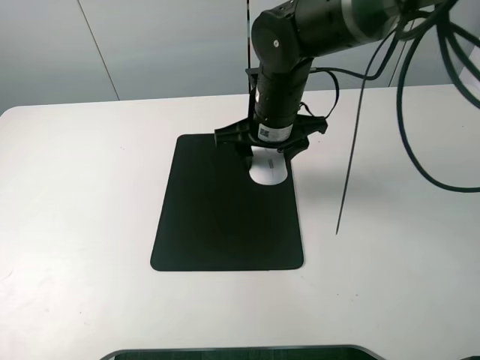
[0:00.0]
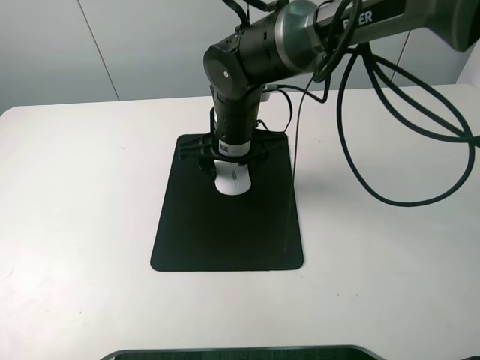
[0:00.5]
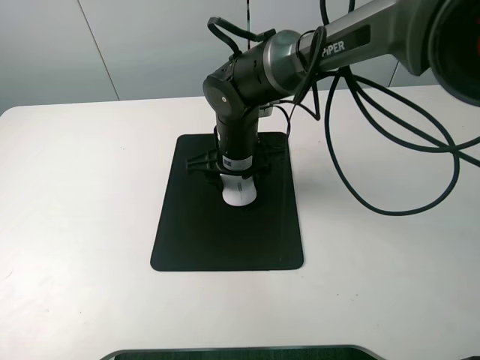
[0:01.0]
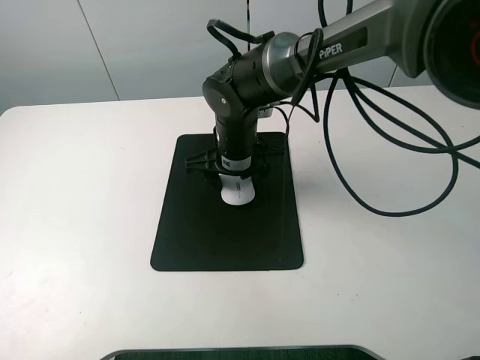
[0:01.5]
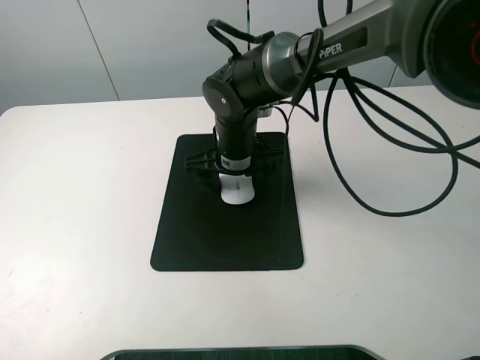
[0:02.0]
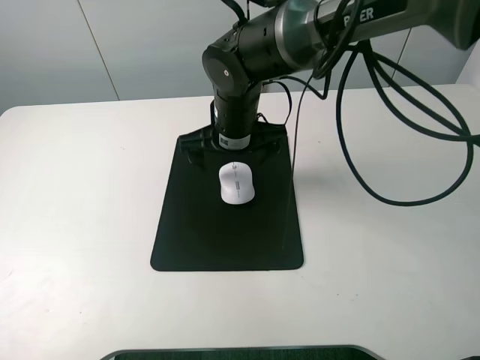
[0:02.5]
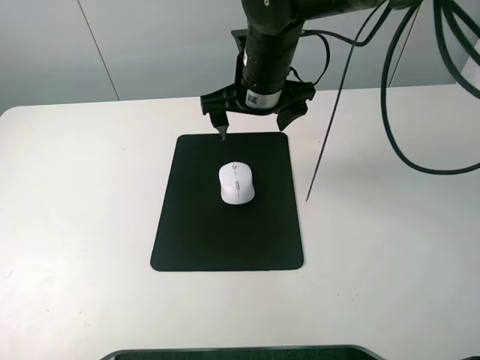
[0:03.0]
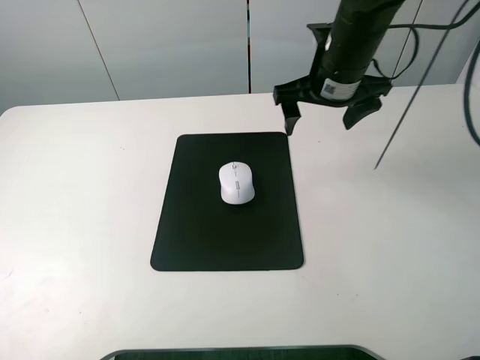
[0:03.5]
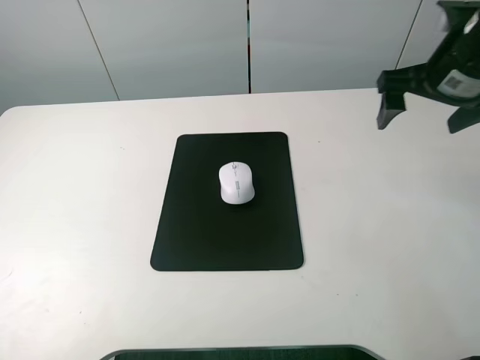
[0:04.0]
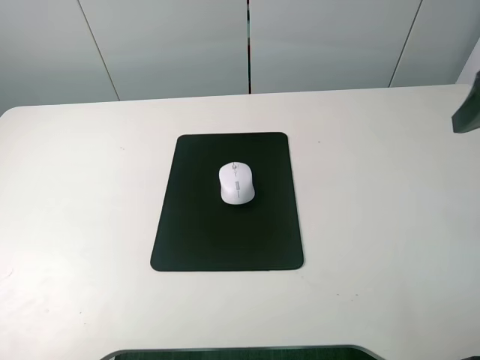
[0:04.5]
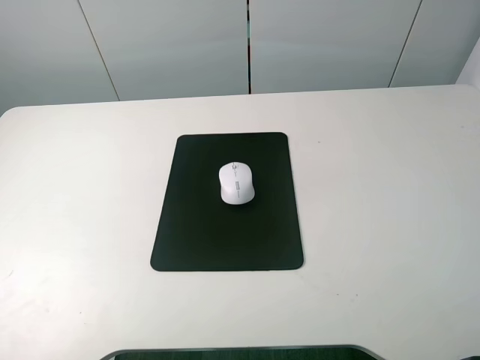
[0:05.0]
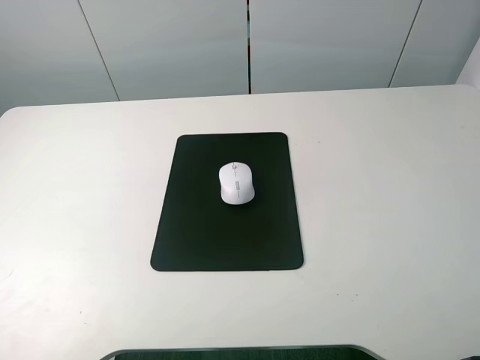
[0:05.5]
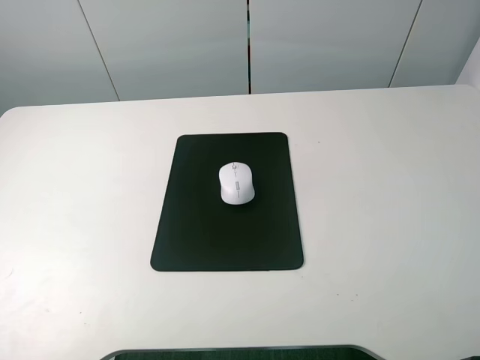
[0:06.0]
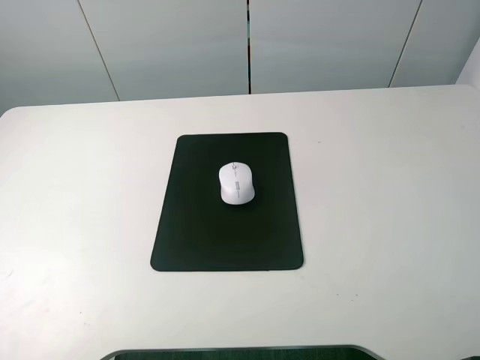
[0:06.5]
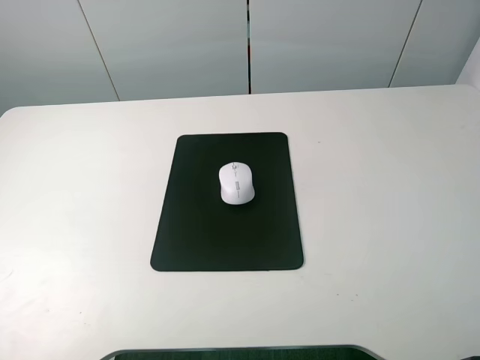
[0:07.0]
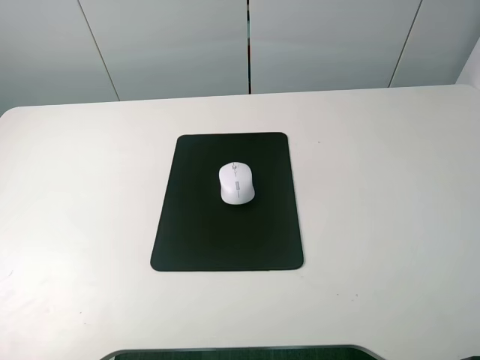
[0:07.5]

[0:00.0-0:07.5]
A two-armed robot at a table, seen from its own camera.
Step, 0:00.0 to 0:02.0: Place the mouse on the mouse mat with the right gripper.
0:00.0 to 0:02.0: The right gripper moves downward, some 5 cm, and opens.
0:02.0 to 0:04.0: The right gripper shifts approximately 30 cm to the right and upward.
0:04.0 to 0:05.5: The right gripper moves backward, about 30 cm.

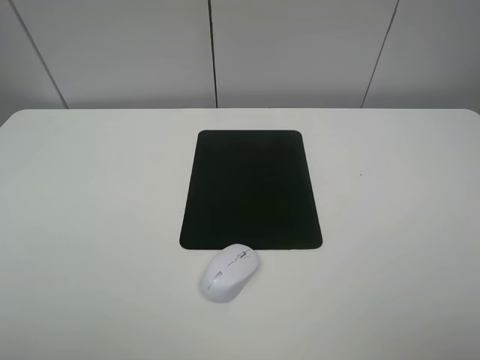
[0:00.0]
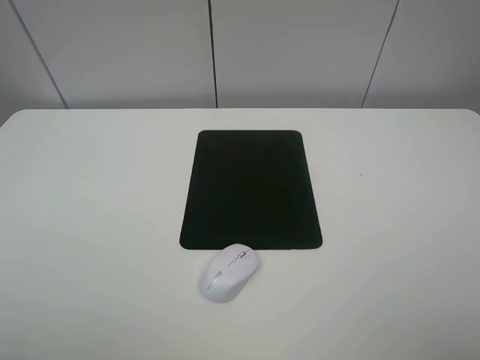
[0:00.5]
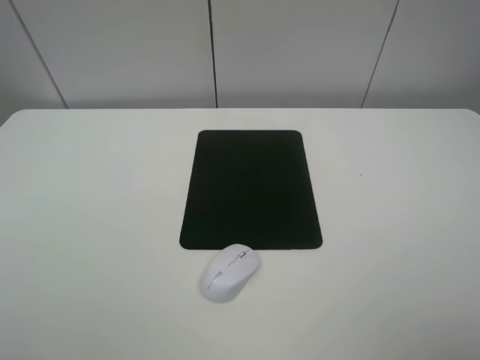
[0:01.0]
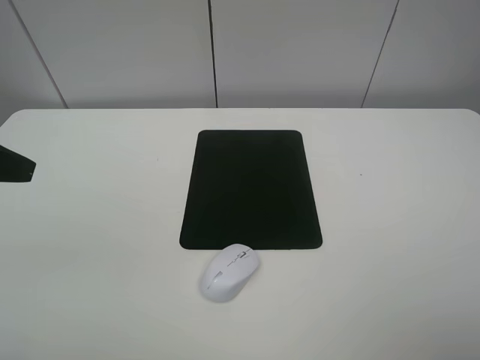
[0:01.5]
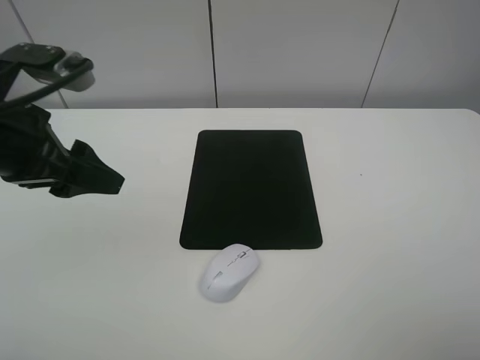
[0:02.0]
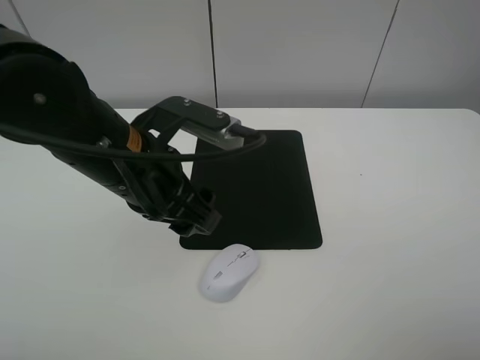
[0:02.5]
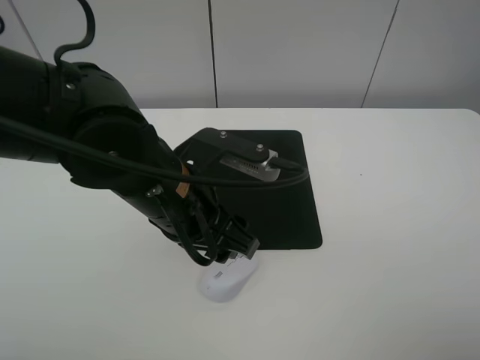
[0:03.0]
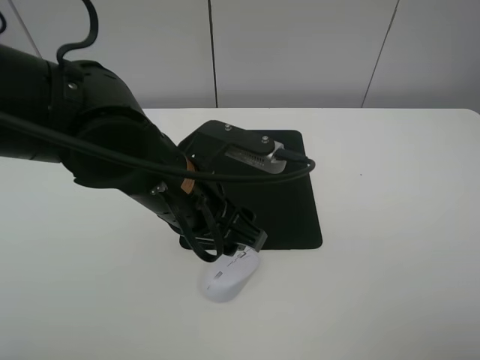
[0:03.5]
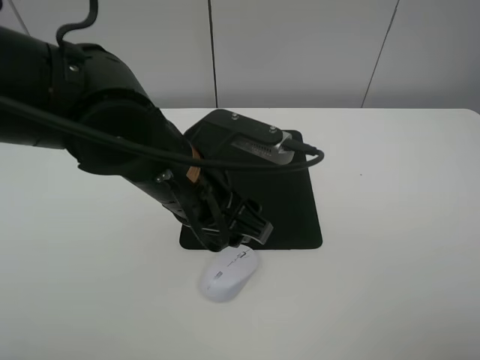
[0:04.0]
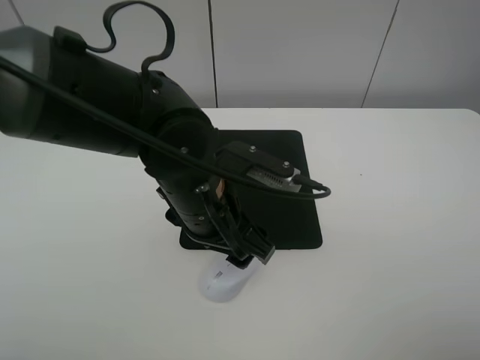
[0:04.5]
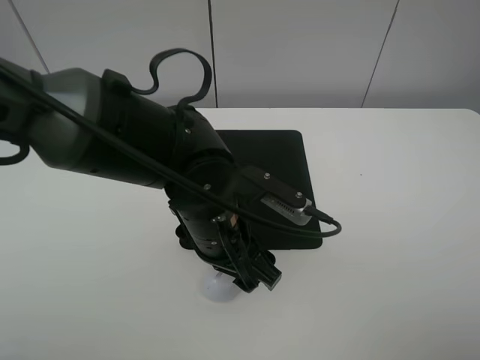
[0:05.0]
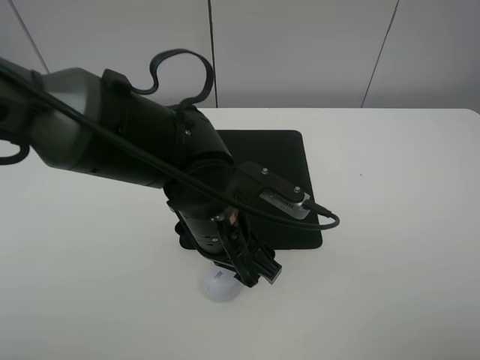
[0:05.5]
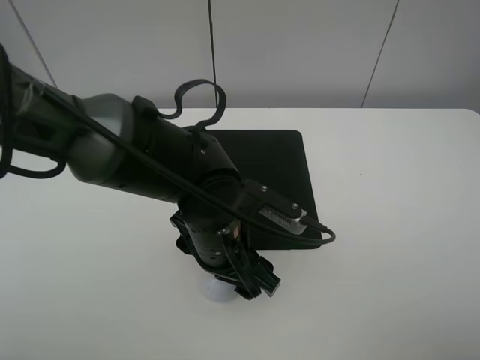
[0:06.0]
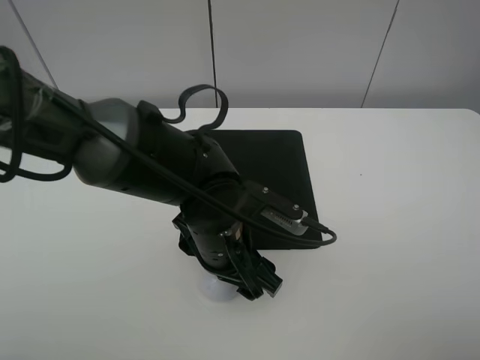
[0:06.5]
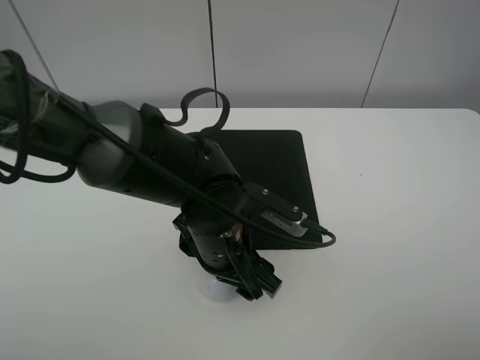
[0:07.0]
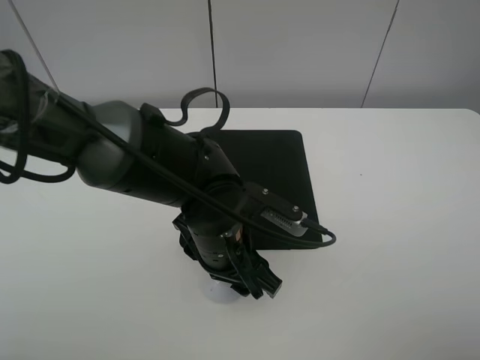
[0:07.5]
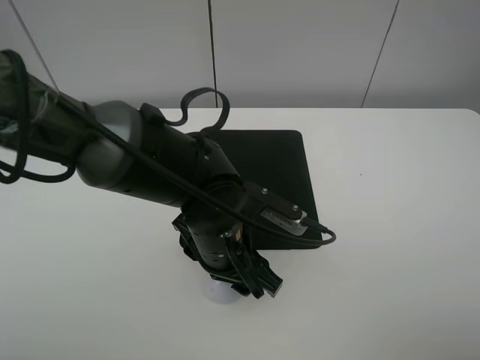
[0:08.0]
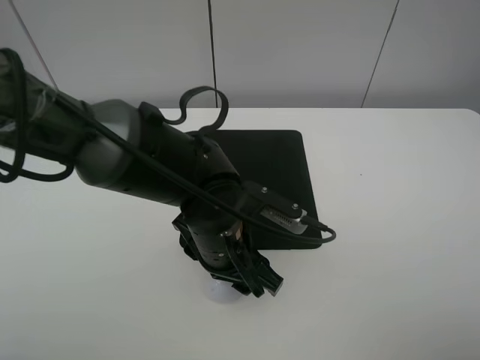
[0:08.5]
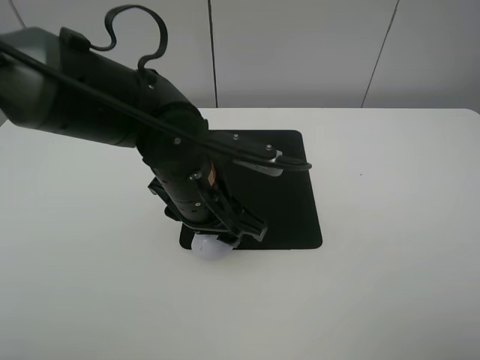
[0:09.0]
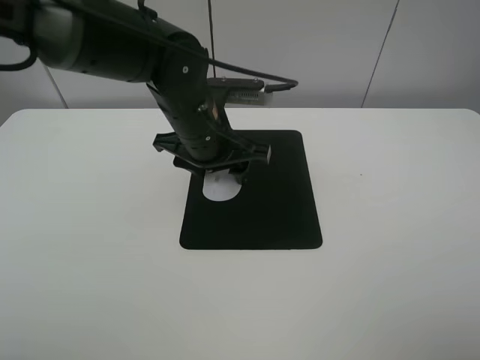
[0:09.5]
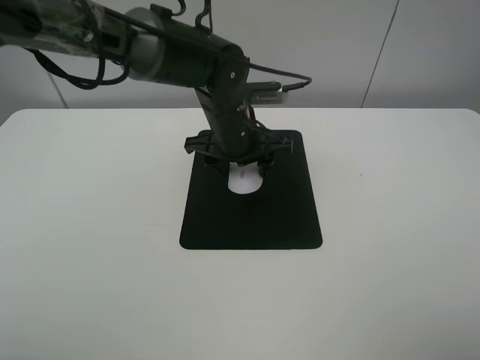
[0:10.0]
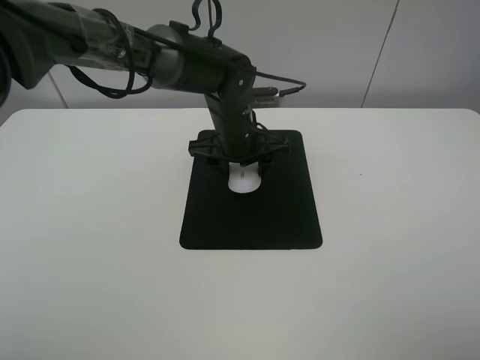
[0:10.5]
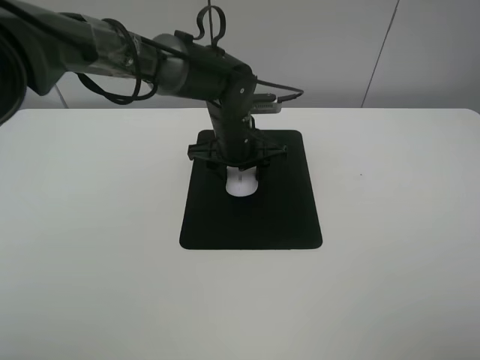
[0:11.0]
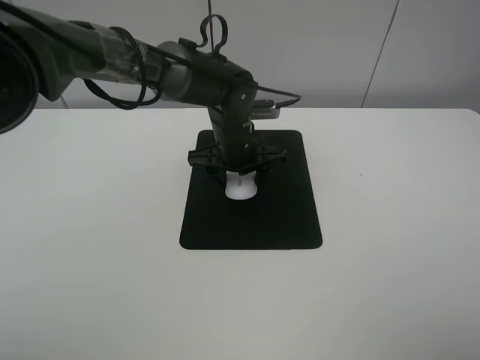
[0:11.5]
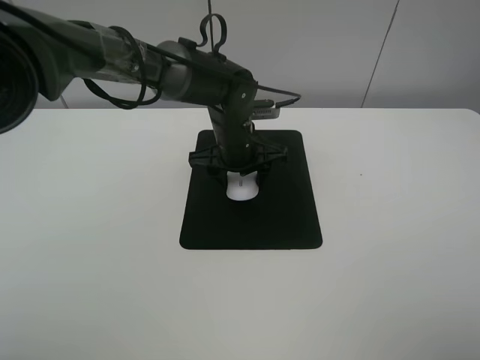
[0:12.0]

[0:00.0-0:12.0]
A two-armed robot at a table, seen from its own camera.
Step, 0:00.0 to 0:08.0: Grasp the mouse with the left gripper.
0:00.0 to 0:02.0: The left gripper goes some 20 cm forward and to the right.
0:02.0 to 0:04.0: The left gripper heads to the right, covering about 15 cm.
0:04.0 to 0:06.0: The left gripper goes about 10 cm downward, and opens its fingers.
0:06.0 to 0:08.0: The left gripper closes up.
0:08.0 to 0:10.0: The left gripper travels forward by approximately 15 cm.
0:10.0 to 0:12.0: The grippers move only a little.

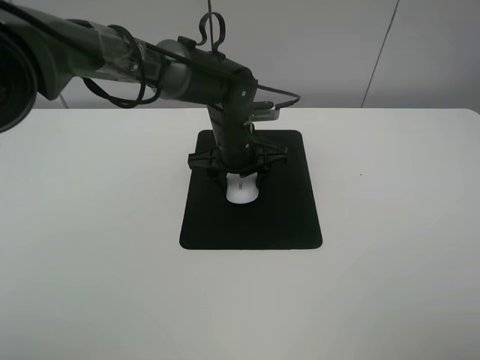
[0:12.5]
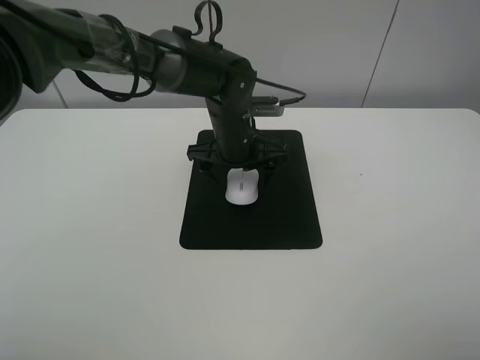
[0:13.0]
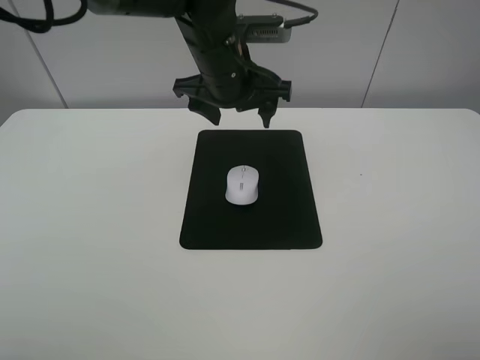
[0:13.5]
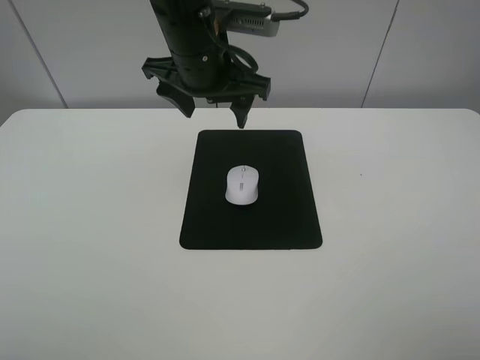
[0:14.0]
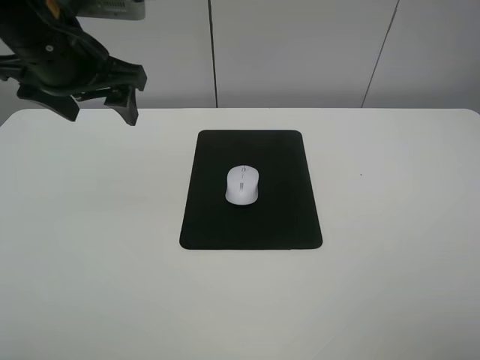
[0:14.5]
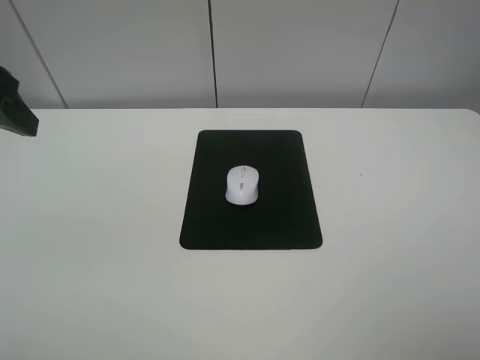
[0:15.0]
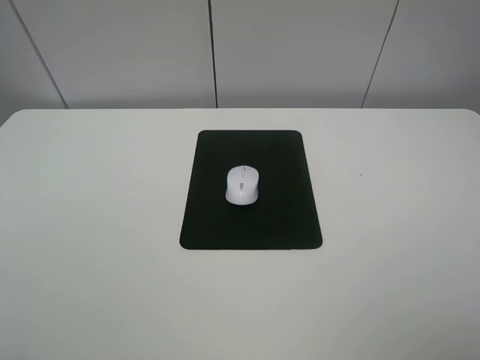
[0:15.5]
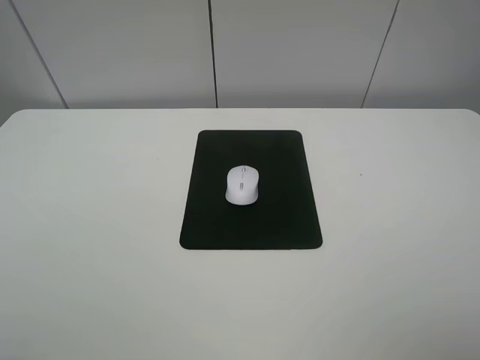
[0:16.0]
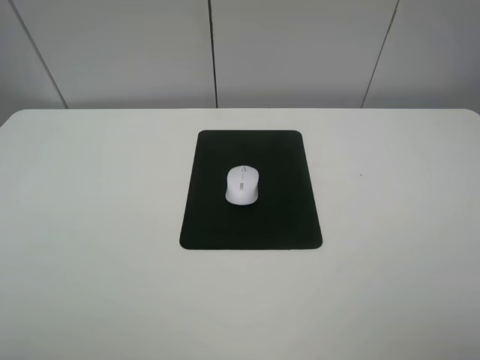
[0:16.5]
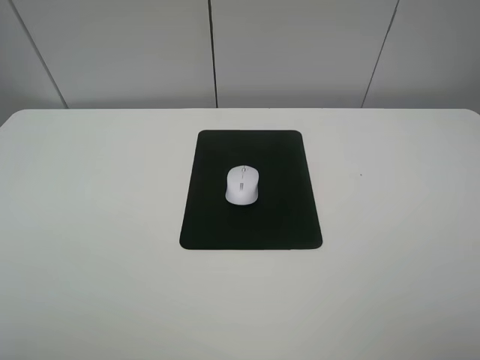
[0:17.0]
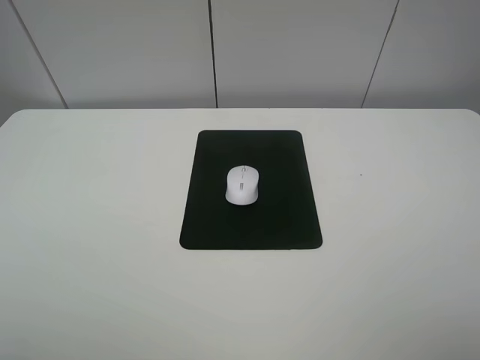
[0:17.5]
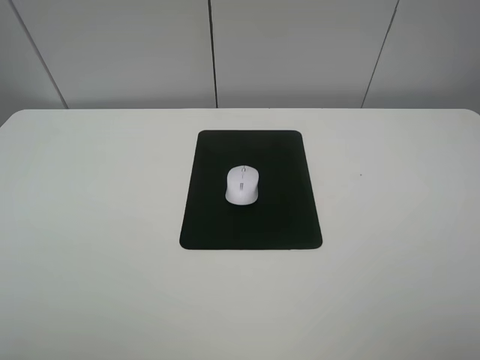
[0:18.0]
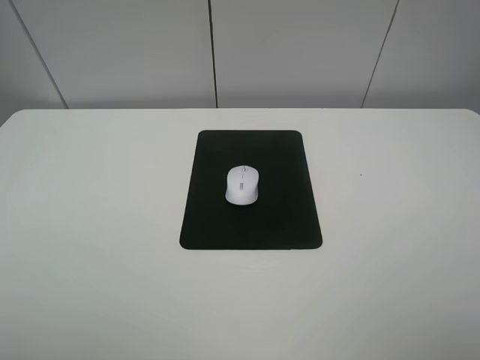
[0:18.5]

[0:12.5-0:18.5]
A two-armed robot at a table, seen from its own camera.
0:12.5 to 0:14.5: The left gripper moves upward and to the left, some 25 cm, and opens.
0:14.5 to 0:16.5: The left gripper is displaced backward and to the left by about 30 cm.
